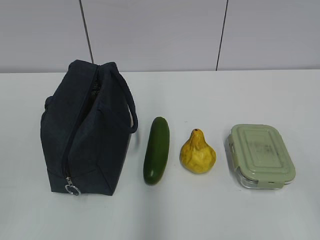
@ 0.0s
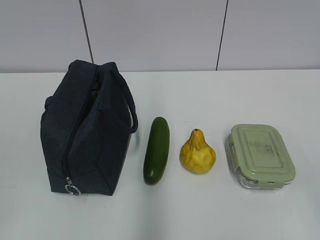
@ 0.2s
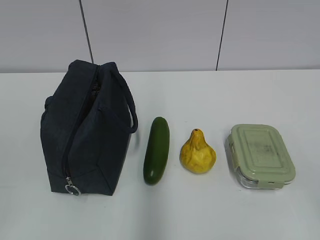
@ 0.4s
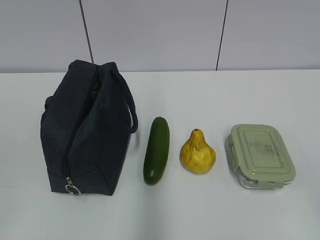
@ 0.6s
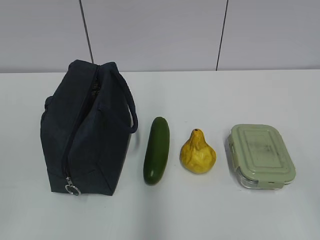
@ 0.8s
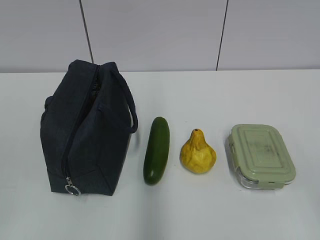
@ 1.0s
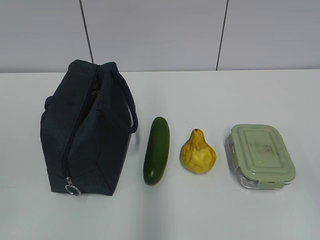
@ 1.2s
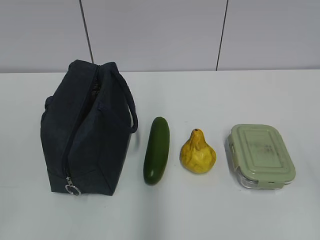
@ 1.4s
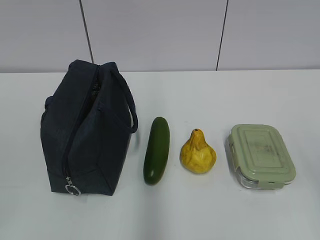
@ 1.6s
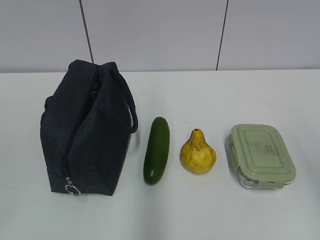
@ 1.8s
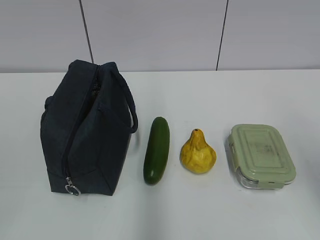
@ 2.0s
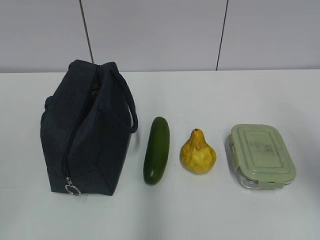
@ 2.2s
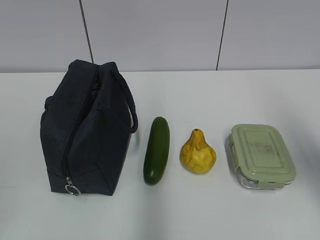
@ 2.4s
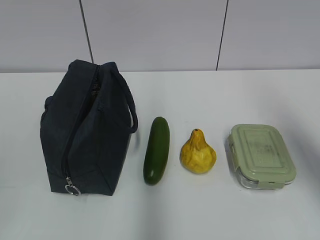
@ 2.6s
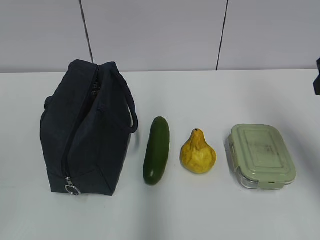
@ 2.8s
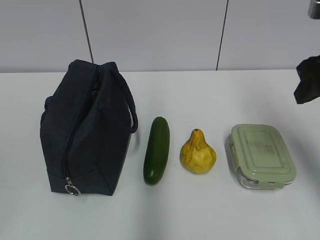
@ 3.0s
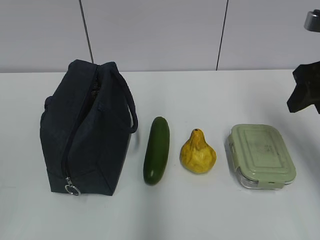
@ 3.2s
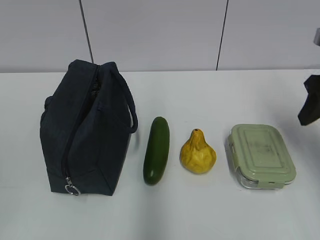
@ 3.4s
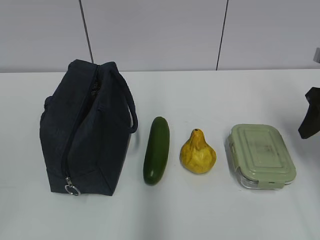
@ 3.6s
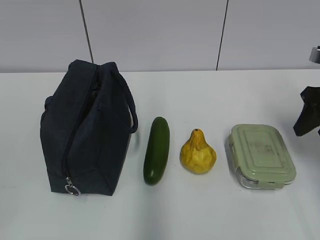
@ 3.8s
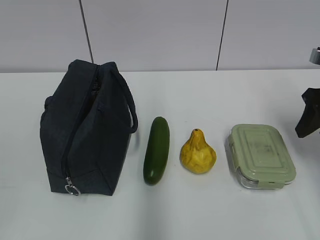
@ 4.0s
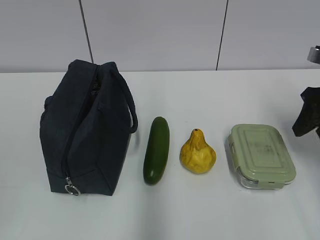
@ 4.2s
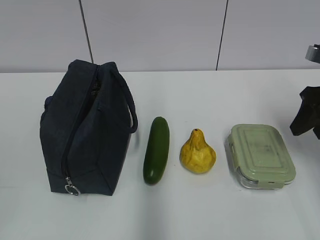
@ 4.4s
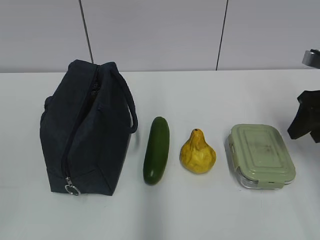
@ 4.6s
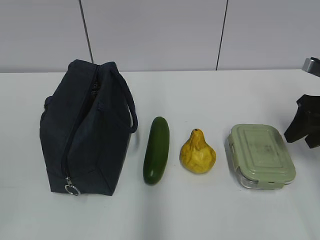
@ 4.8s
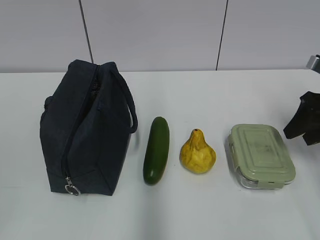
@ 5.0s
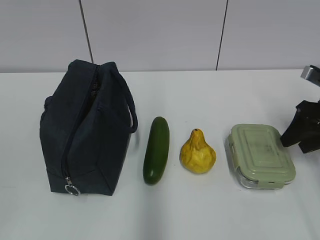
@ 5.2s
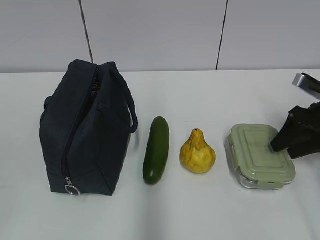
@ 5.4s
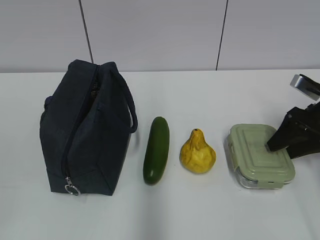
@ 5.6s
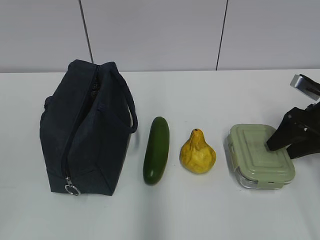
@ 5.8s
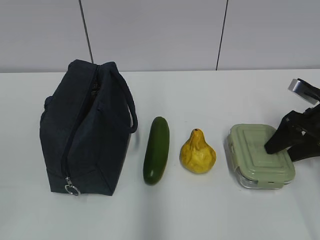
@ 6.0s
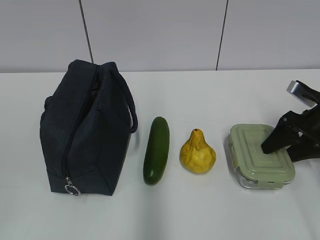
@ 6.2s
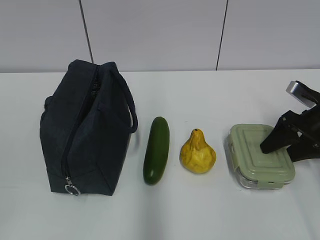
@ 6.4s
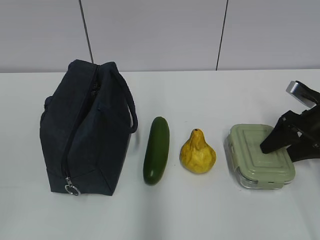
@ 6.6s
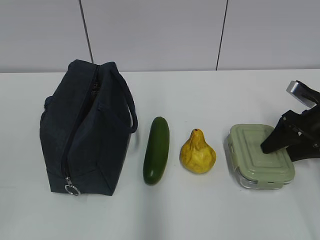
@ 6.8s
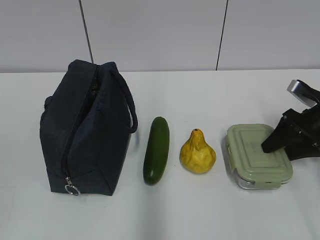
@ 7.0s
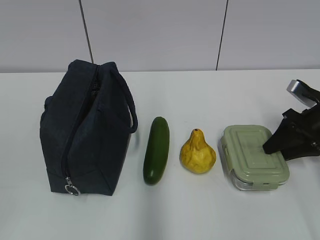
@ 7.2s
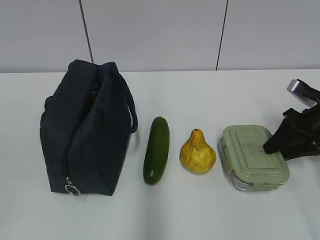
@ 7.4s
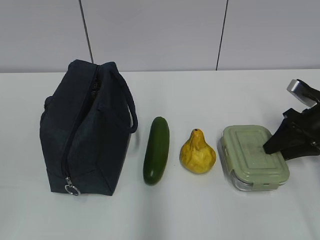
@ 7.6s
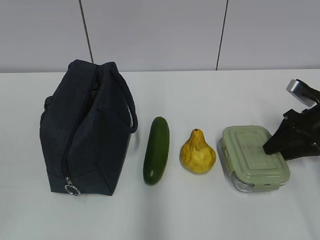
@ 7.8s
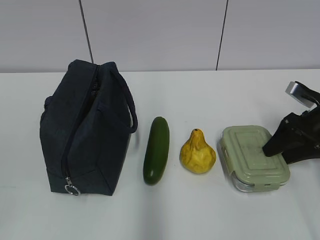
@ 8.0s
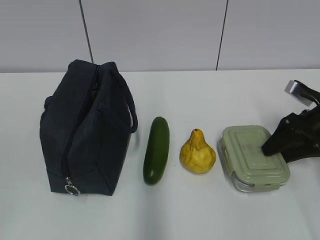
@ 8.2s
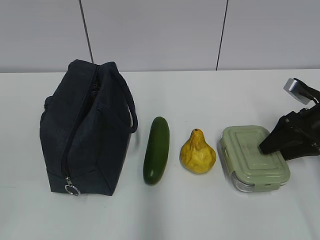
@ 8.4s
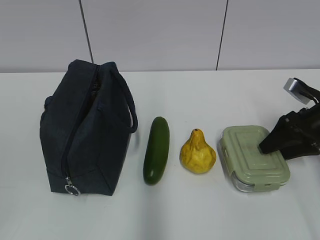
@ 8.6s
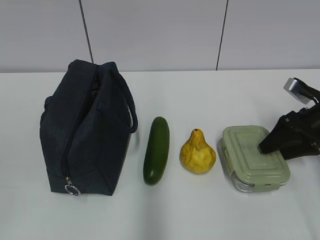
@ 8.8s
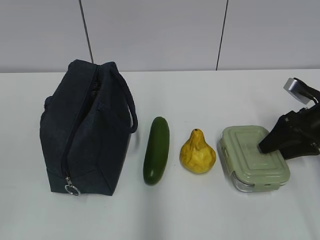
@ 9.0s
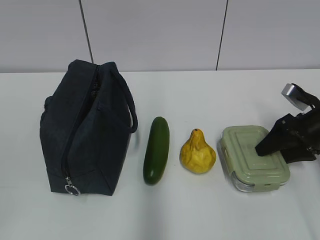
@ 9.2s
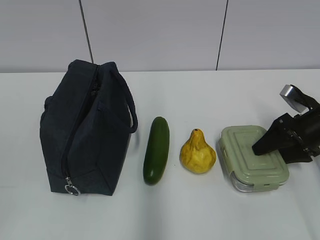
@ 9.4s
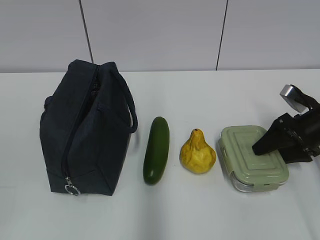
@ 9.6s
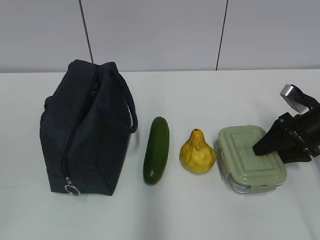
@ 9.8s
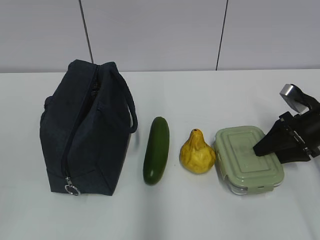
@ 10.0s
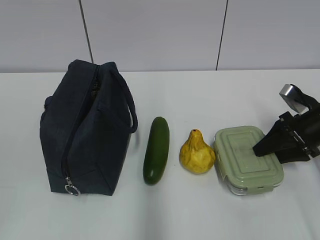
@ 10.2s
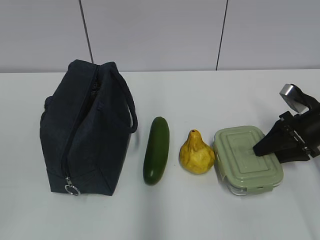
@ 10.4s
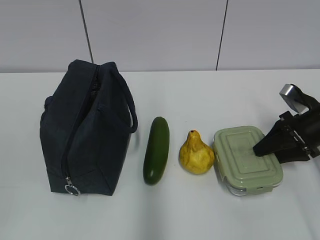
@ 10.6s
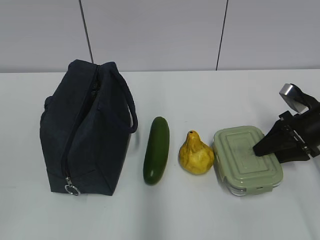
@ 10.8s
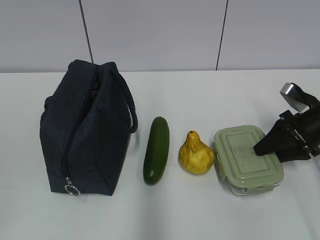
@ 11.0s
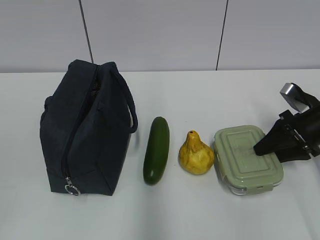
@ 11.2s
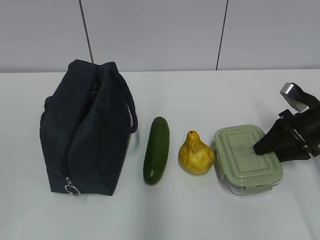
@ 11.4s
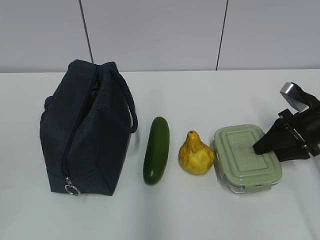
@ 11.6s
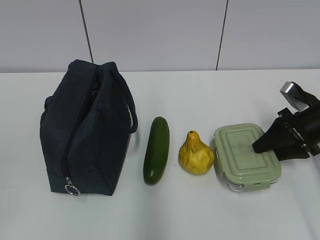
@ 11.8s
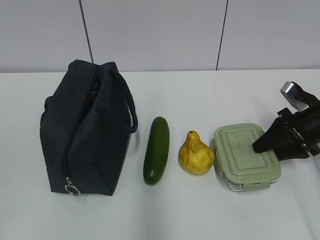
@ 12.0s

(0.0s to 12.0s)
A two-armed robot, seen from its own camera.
Step, 0.0s - 10.8s: Grab the lunch box with your right hand.
1.6s - 3.0s: The right gripper heads forward, covering roughly 25 cm.
3.0s - 4.4s: The right gripper travels downward and to the right by roughly 10 cm.
4.4s - 6.0s: The right gripper goes roughly 10 cm downward.
6.0s - 7.6s: Both grippers stay about where they are.
9.0s - 10.4s: The grippers move only a little.
10.4s - 12.0s: Both grippers stay put.

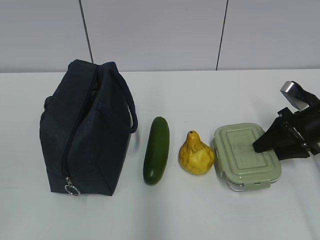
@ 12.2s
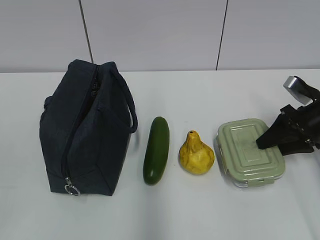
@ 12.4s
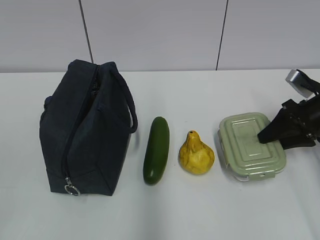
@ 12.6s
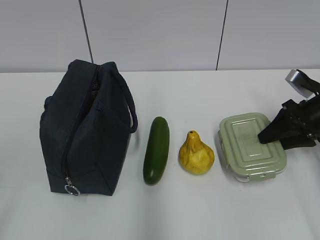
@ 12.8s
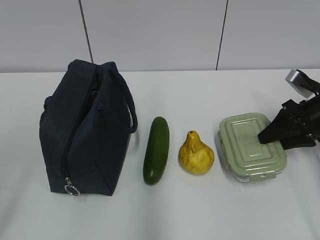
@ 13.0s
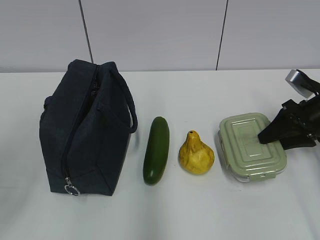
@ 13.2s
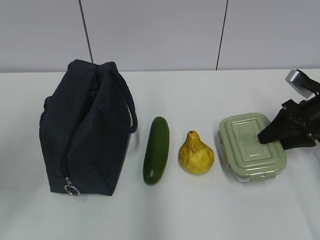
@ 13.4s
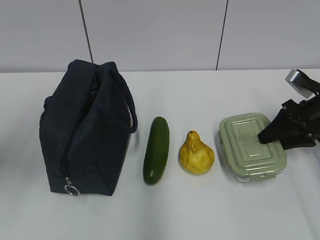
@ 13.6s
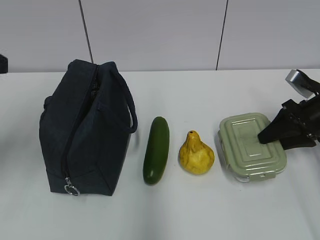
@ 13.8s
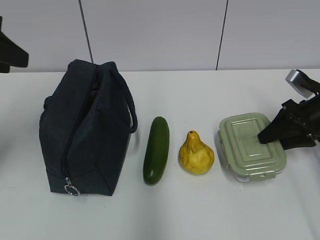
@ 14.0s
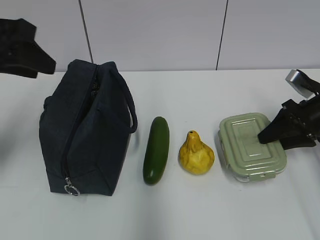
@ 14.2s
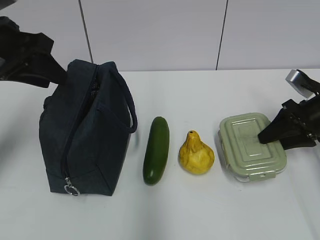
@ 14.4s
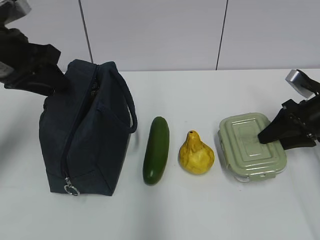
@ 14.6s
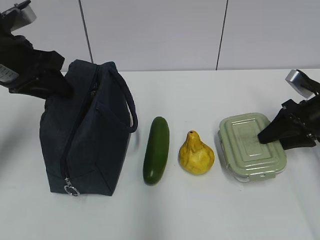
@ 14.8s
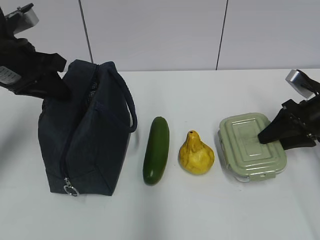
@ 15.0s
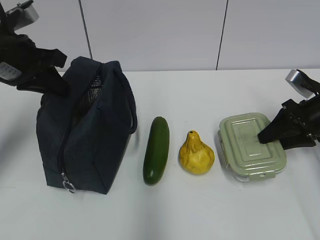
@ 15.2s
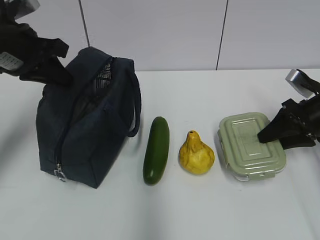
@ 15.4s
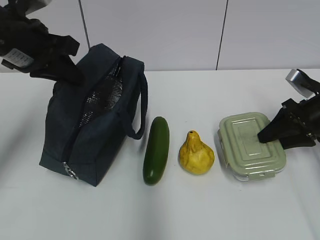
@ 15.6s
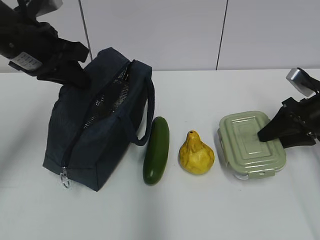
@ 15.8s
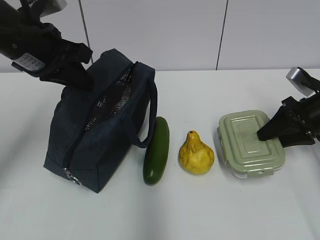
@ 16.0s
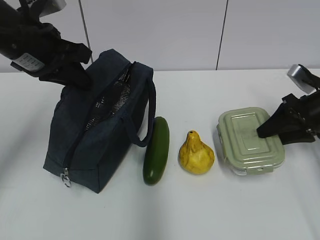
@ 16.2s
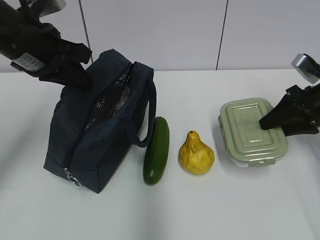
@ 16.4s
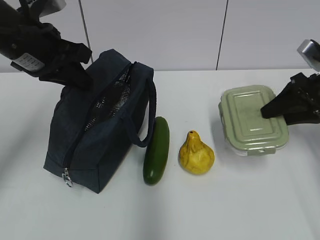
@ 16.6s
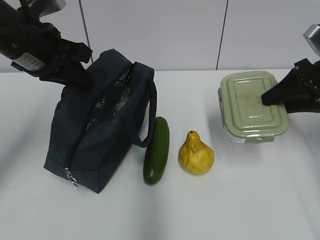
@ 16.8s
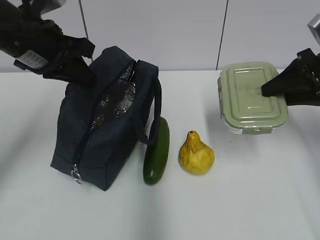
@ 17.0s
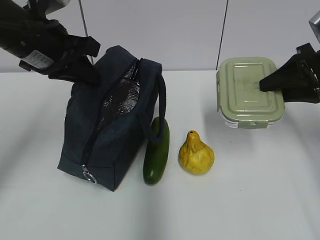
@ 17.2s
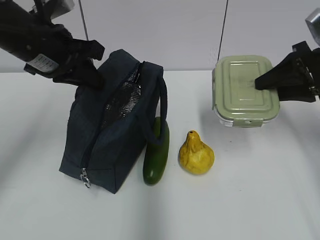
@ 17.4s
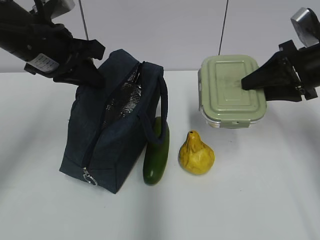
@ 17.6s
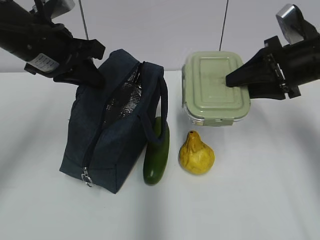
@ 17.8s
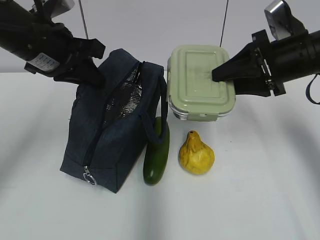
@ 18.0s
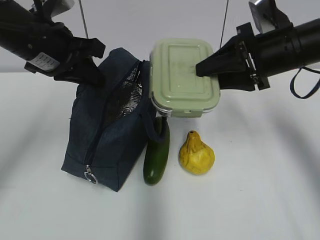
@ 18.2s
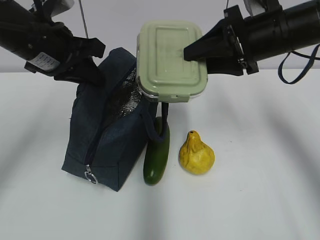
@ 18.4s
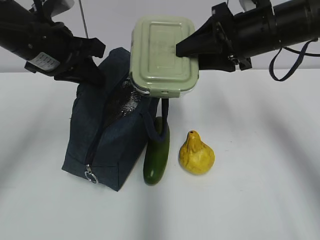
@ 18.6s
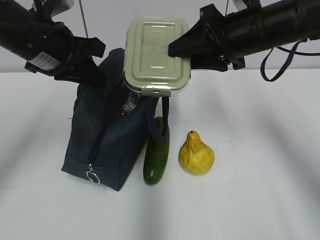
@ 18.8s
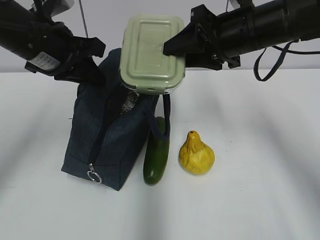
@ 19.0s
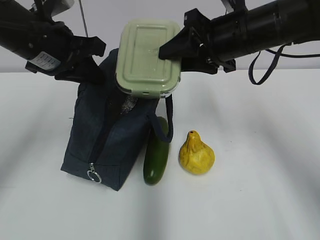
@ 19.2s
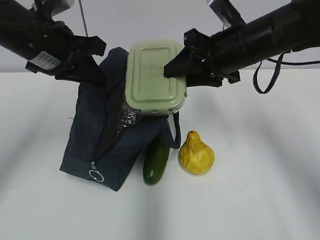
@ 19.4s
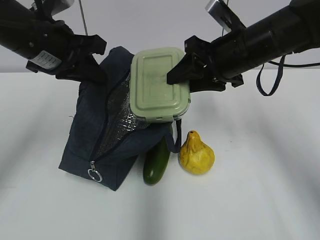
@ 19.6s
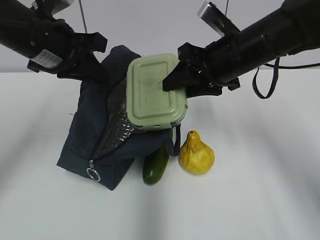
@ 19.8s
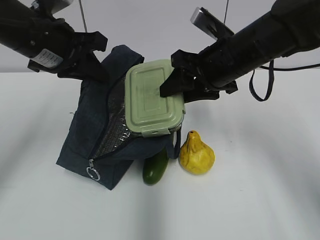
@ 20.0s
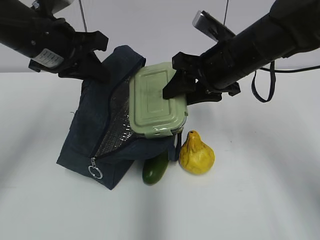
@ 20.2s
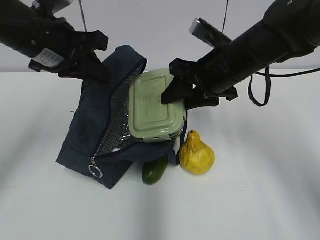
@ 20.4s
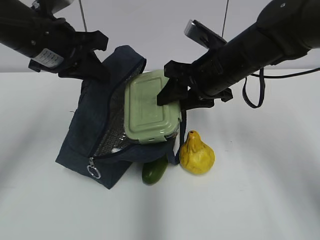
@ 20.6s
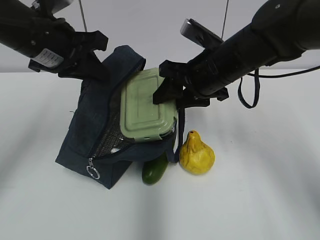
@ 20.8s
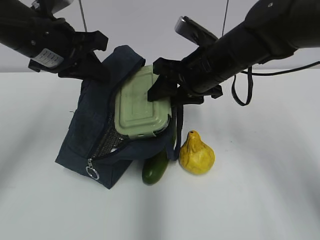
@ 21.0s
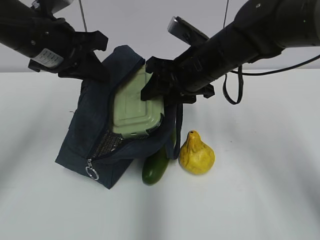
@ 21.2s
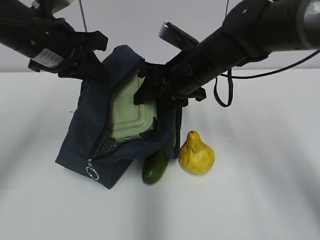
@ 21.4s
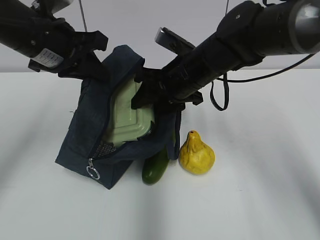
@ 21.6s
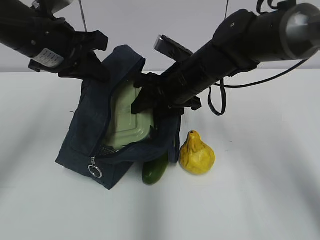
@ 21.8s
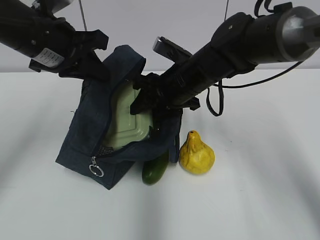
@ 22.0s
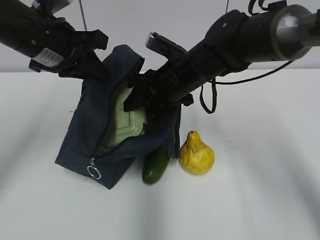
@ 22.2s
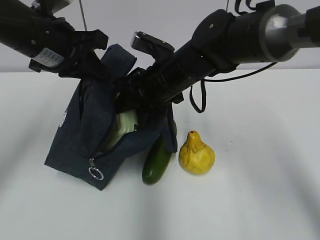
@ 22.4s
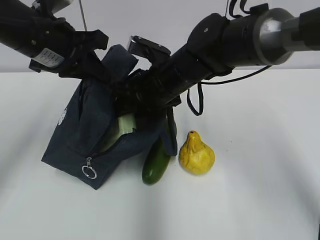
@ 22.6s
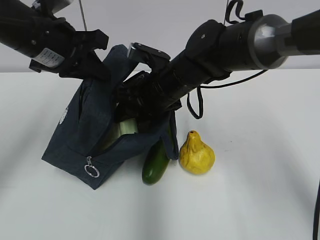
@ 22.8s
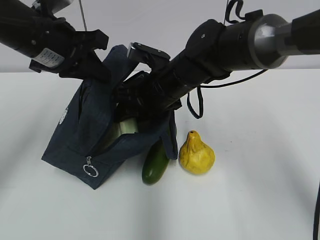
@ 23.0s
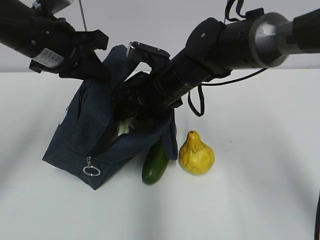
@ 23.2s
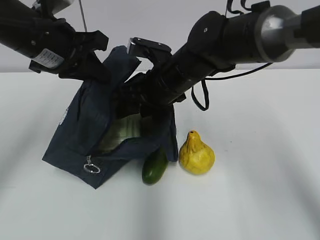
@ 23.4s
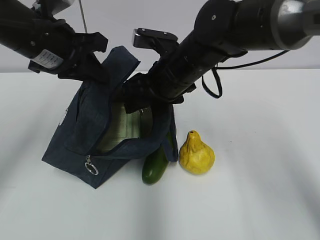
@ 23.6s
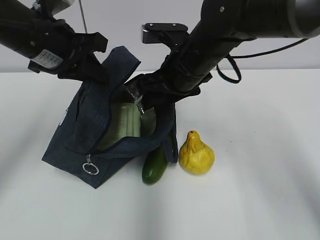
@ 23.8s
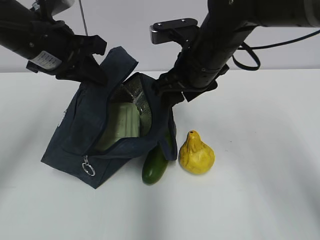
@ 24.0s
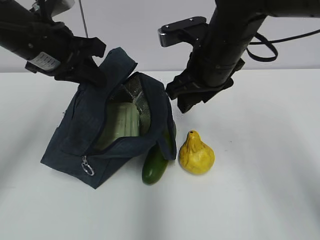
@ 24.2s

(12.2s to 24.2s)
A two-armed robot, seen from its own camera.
Step, 12.2s - 19.0s: Grab the lunch bag with your left hand.
Step, 19.2s - 23.2s: Place it into the bag with your right hand.
12.2s - 13.8s: The left gripper moves forward, some 25 cm.
13.8s - 15.2s: The left gripper shifts approximately 15 cm forward and downward, and closes up.
15.2s - 16.6s: The right gripper heads upward, covering about 5 cm.
16.6s - 18.2s: The right gripper shifts roughly 15 cm to the left and upward.
18.2s - 19.8s: The right gripper shifts roughly 5 cm to the left.
19.8s - 21.2s: The right gripper shifts by roughly 5 cm.
21.2s - 22.6s: The right gripper heads to the left, covering roughly 5 cm.
22.6s - 24.2s: The right gripper moves to the right and upward, some 10 cm.
